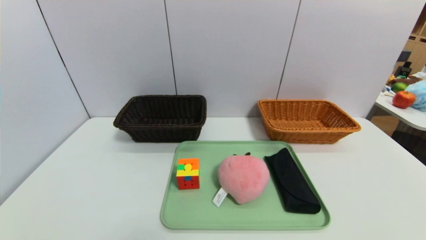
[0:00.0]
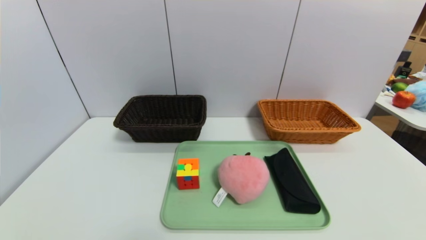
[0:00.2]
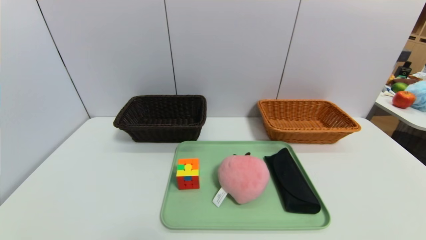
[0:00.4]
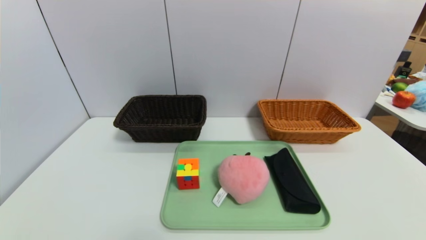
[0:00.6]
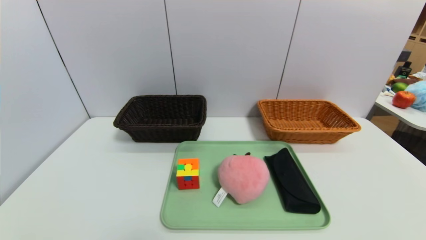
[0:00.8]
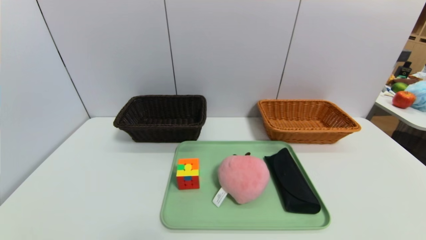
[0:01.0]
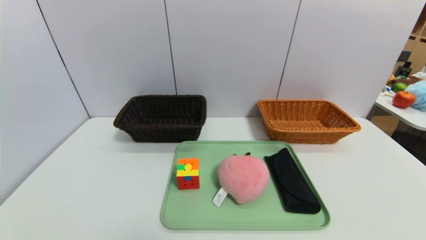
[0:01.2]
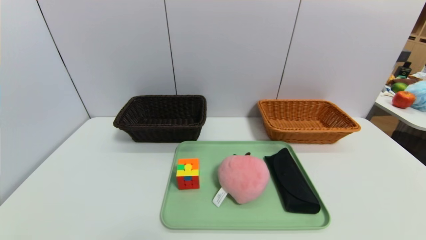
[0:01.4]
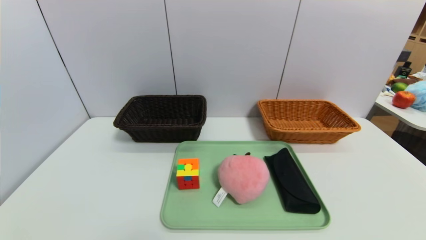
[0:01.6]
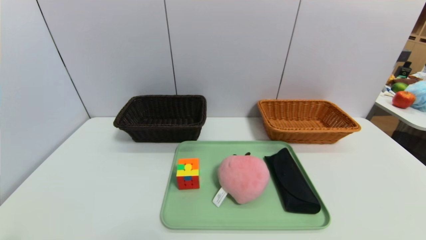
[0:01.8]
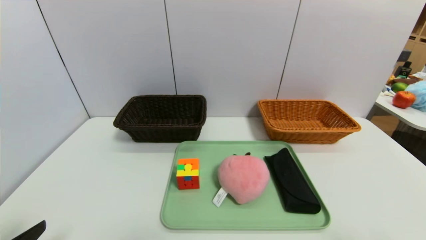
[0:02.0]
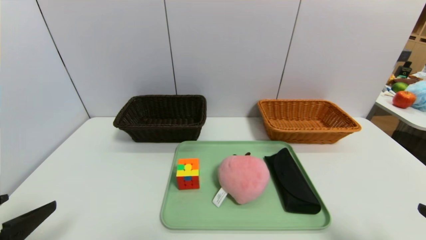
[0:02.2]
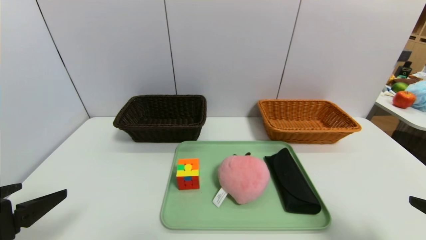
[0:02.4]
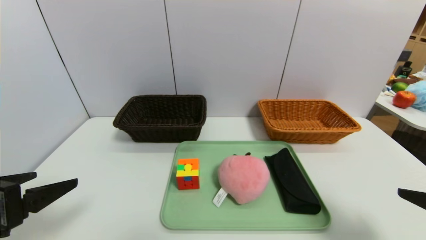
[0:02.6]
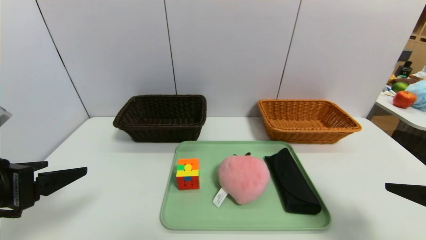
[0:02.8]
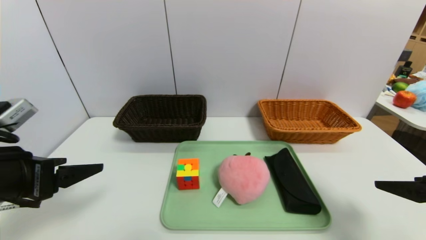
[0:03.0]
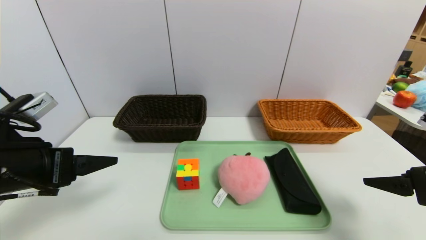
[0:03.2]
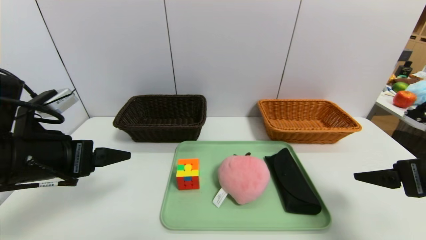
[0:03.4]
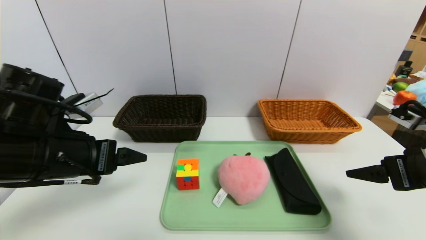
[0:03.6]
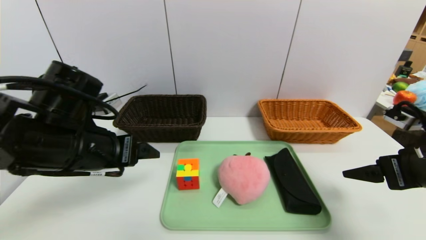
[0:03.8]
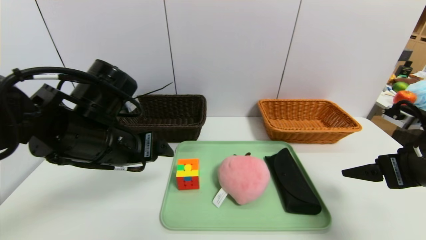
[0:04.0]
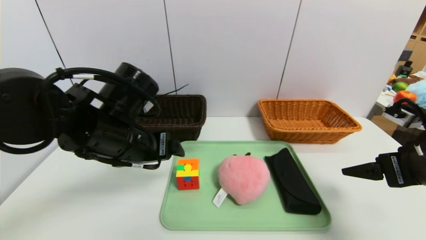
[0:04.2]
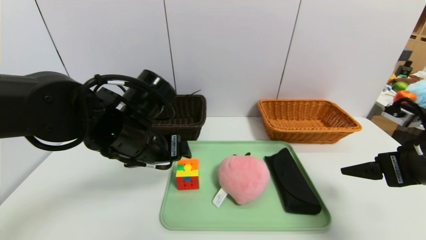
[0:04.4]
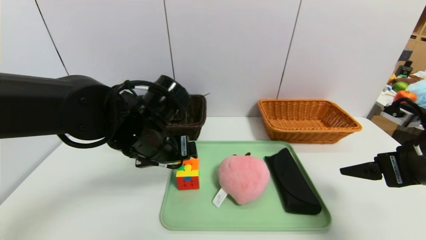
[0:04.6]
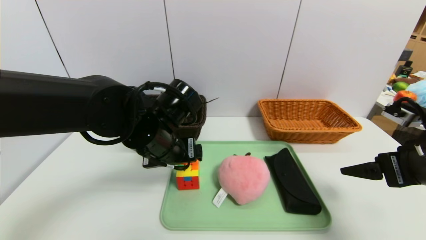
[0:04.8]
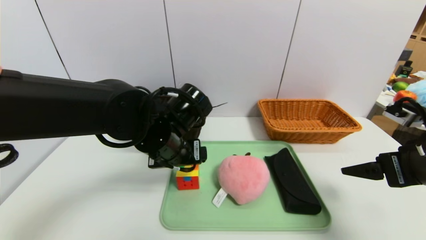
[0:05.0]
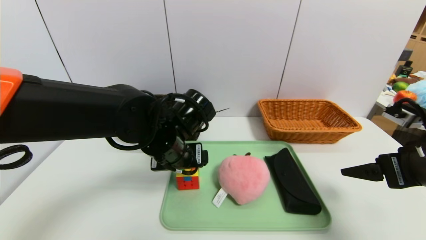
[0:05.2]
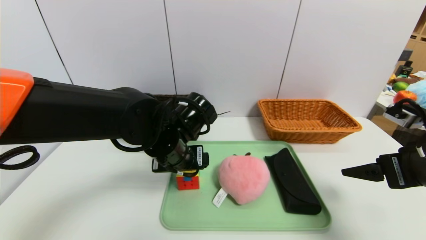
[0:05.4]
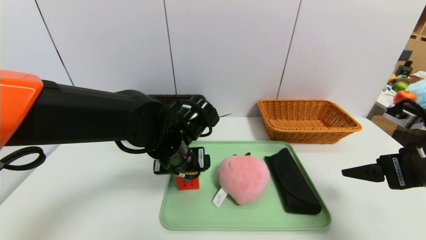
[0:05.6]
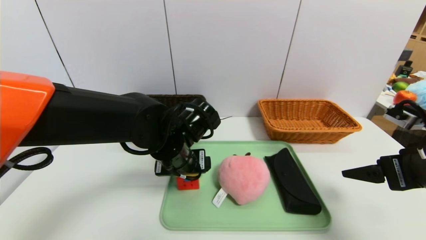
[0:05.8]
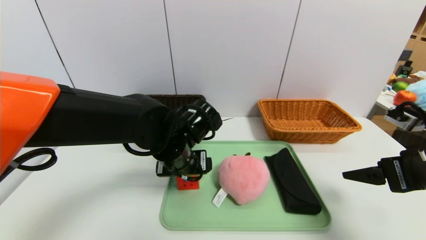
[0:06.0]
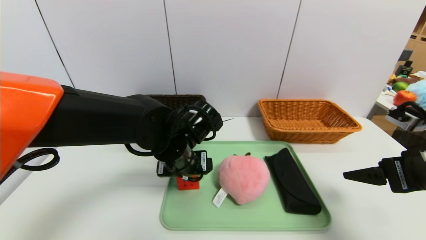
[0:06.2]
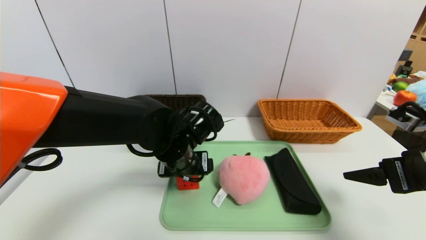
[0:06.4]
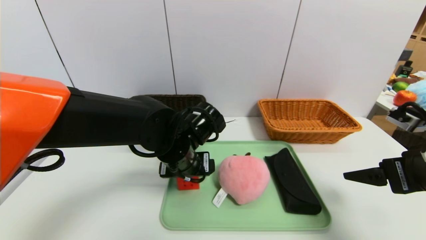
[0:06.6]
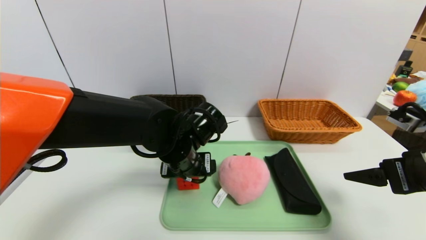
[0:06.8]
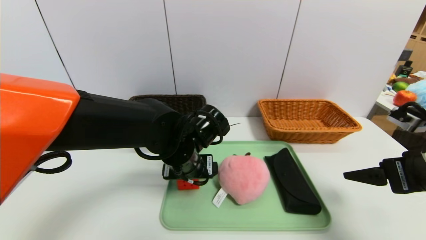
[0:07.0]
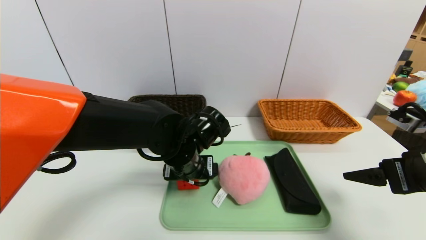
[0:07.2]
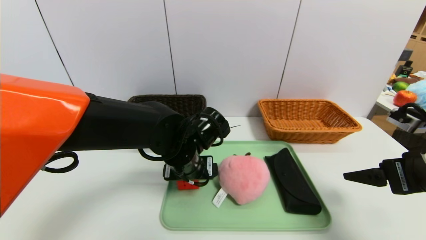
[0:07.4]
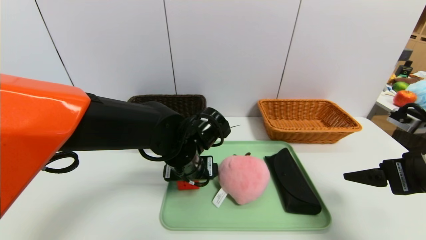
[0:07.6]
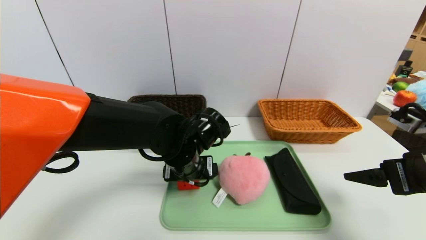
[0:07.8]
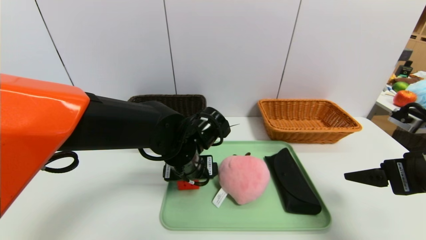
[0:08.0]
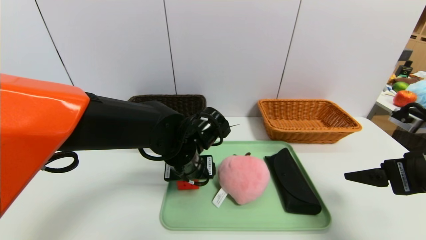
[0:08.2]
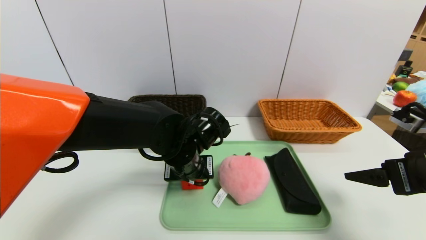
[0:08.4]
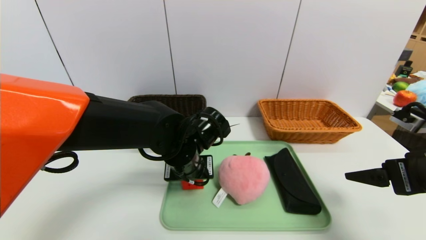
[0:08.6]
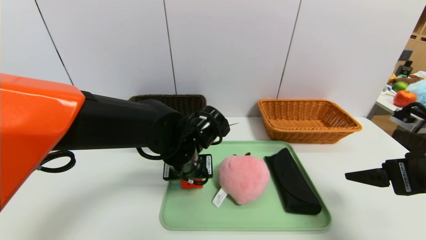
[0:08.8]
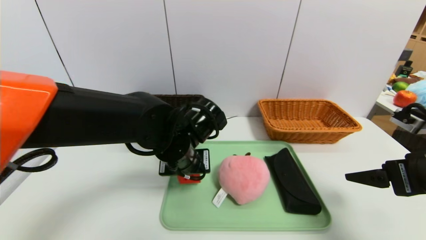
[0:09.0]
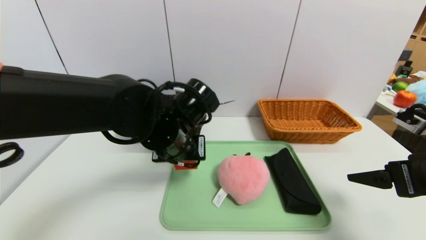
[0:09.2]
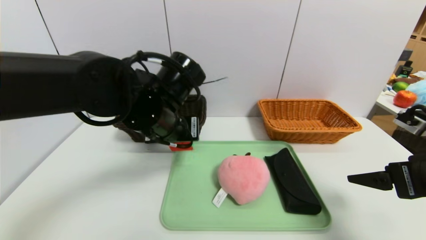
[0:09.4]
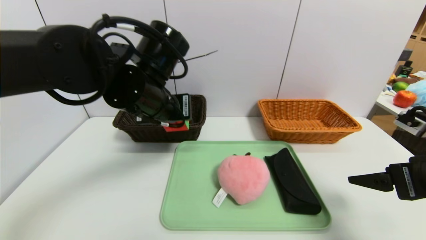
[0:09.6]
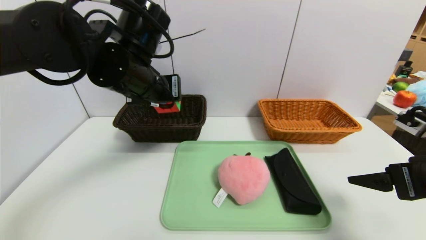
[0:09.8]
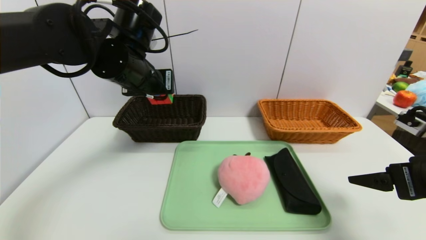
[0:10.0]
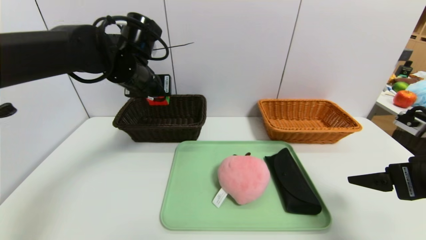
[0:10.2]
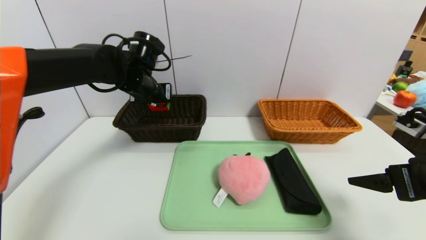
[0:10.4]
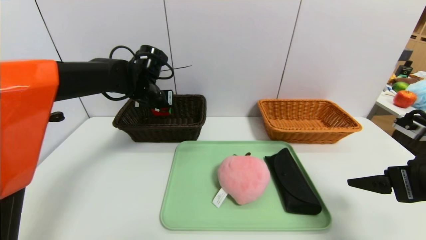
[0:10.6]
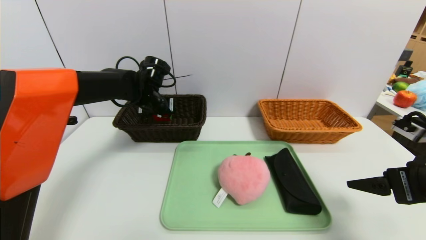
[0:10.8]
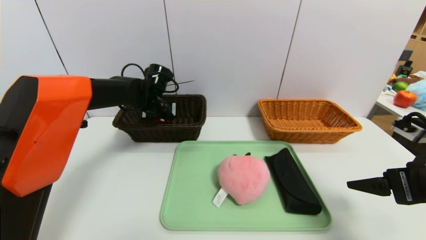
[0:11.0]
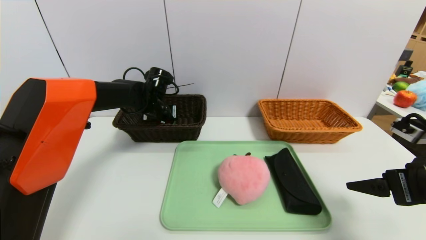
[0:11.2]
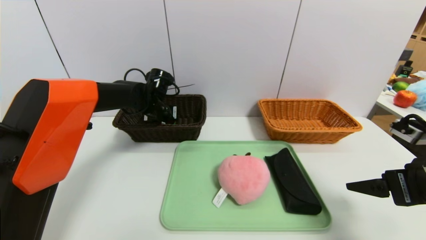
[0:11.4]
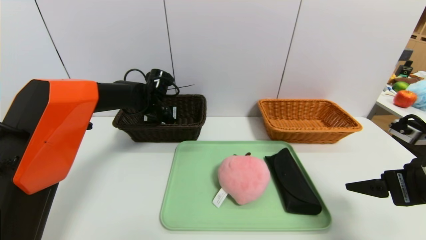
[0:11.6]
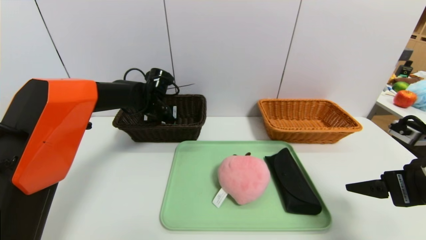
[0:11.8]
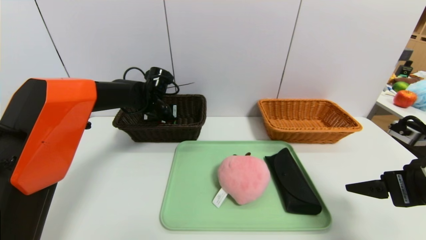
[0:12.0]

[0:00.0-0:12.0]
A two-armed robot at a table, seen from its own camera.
Task of the whole recording: place the food in the right basket with the right gripper, and place the non food items in the left basket with the left gripper.
0:01.6 to 0:03.0: The left gripper shifts some 20 cm forward and upward. The right gripper heads forward, covering some 15 cm.
0:03.0 to 0:04.4: The right gripper heads forward, covering some 5 cm; the left gripper shifts about 20 cm to the right and forward.
0:04.4 to 0:06.0: The left gripper is displaced to the right by some 5 cm.
0:06.0 to 0:07.6: There are only small adjustments of the grippers.
0:07.6 to 0:09.0: The left gripper closes its fingers.
0:09.0 to 0:10.4: The left gripper goes approximately 20 cm forward, to the left and upward.
0:10.4 to 0:12.0: The left gripper heads downward and forward, covering approximately 10 cm.

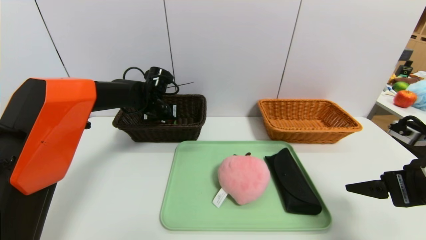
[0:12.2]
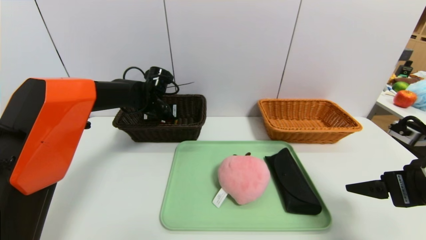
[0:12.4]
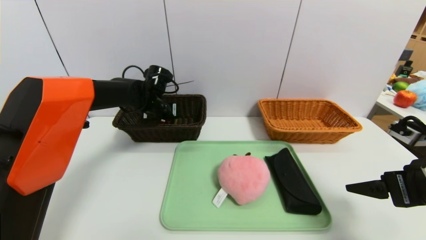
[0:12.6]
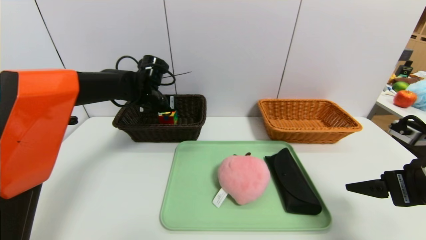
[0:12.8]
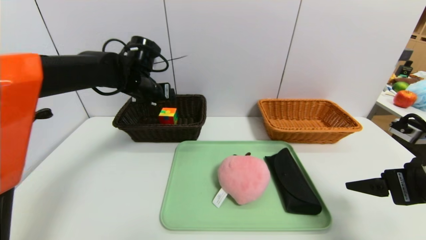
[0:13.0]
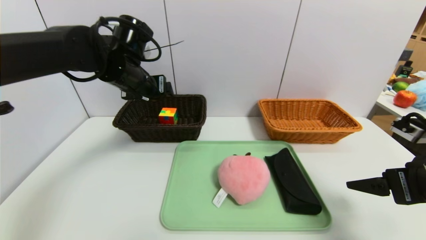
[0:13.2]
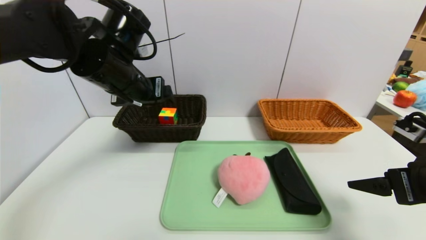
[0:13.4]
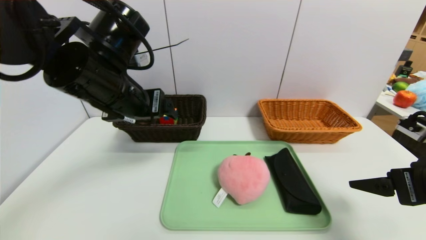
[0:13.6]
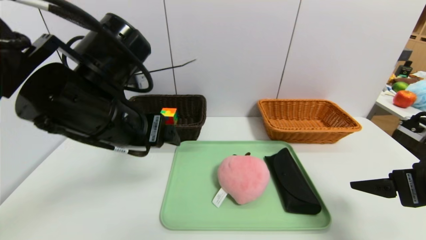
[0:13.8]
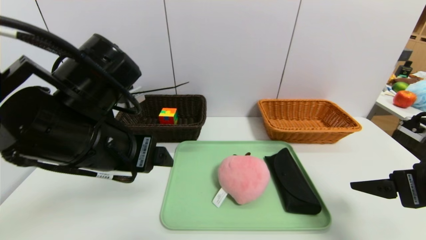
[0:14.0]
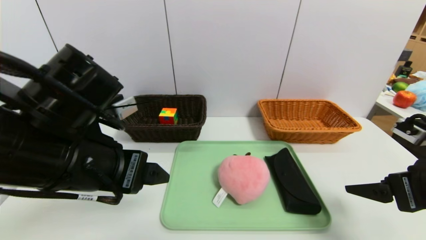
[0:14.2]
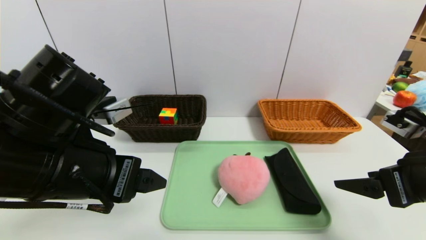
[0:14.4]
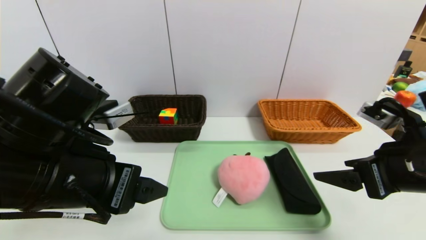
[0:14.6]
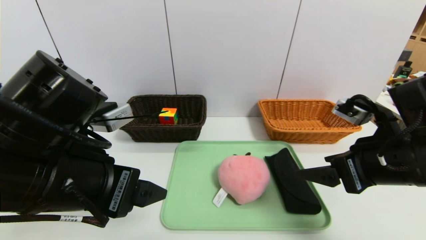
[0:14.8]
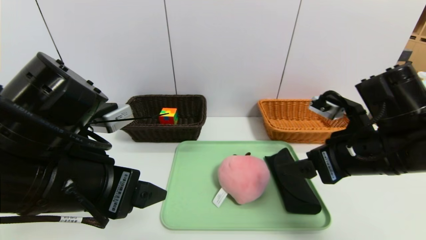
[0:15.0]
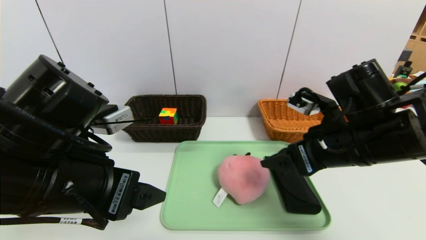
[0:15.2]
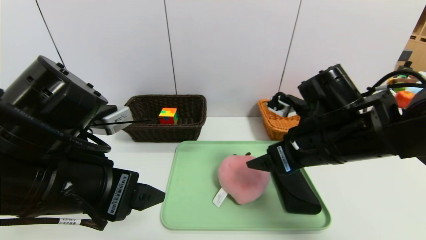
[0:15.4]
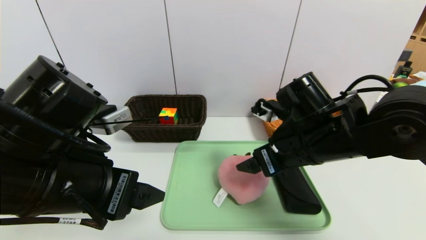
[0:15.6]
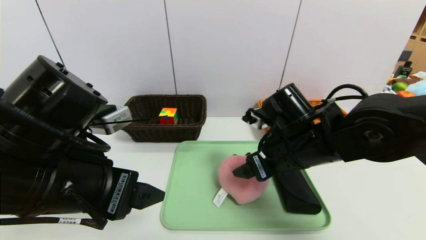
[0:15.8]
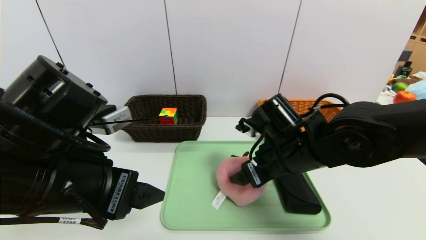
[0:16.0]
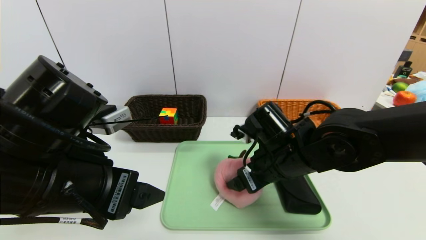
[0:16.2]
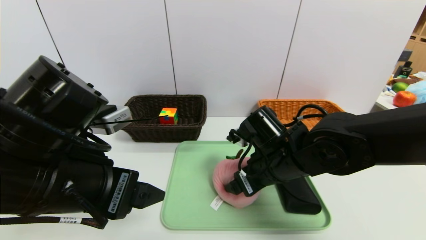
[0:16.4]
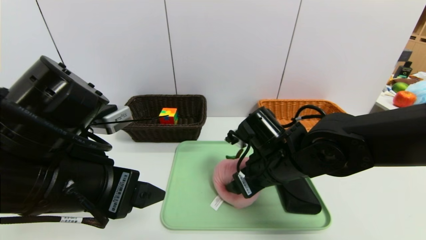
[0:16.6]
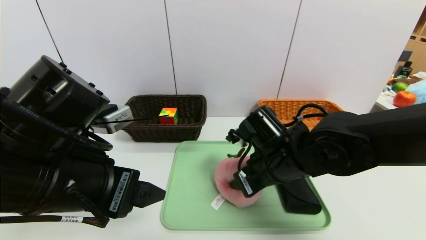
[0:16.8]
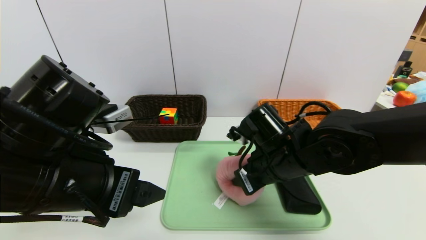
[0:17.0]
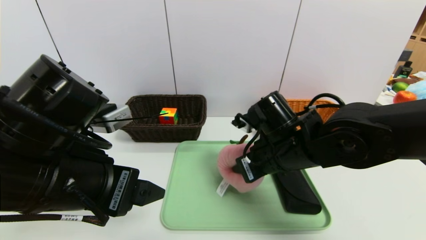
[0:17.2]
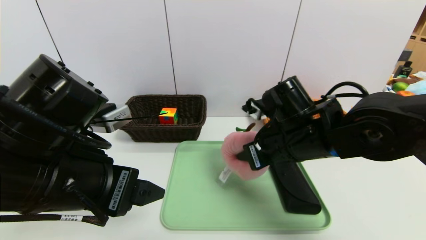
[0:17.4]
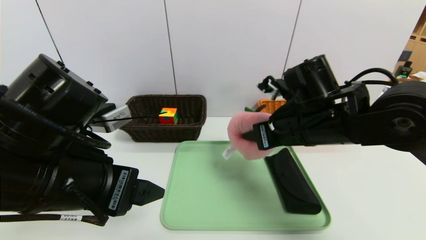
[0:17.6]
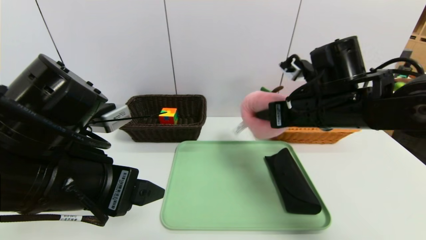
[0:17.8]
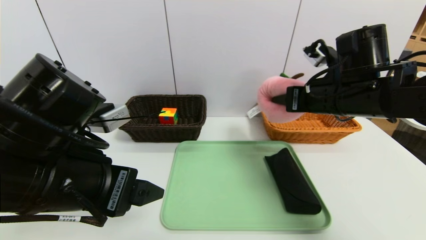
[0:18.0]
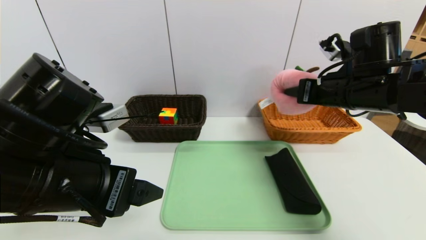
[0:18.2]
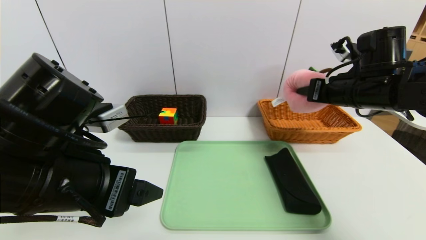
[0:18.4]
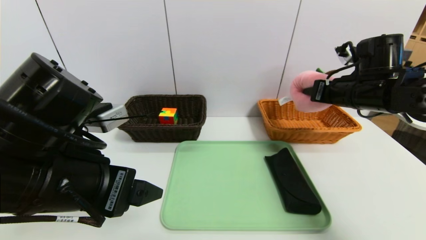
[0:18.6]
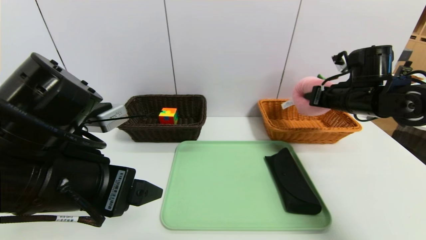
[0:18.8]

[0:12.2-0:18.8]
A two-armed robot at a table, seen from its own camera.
Task of the whole recording: place the food in the right basket with the right gripper, and place the non food items in the left basket with the left gripper.
0:12.2 to 0:13.8: The left gripper goes approximately 25 cm backward and upward.
0:13.8 to 0:15.4: The left gripper heads backward, covering approximately 5 cm; the right gripper goes about 20 cm to the left and forward.
0:15.4 to 0:17.2: The right gripper shifts by some 5 cm, and closes its fingers.
0:17.2 to 0:18.8: The right gripper goes roughly 20 cm to the right and forward.
